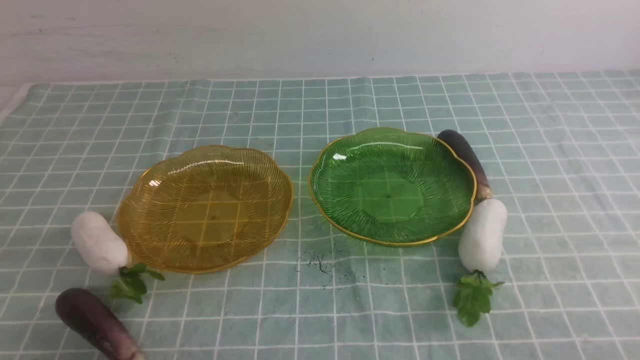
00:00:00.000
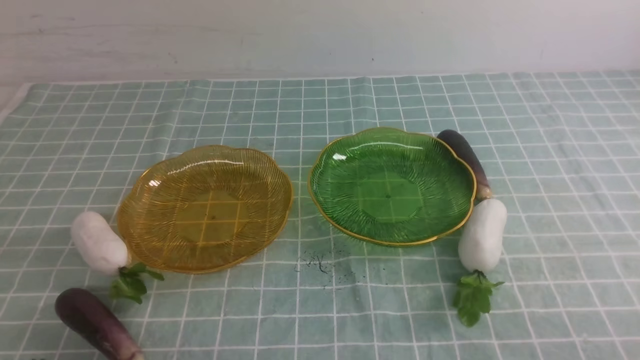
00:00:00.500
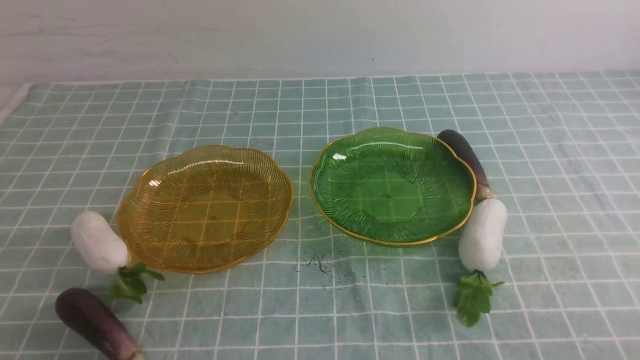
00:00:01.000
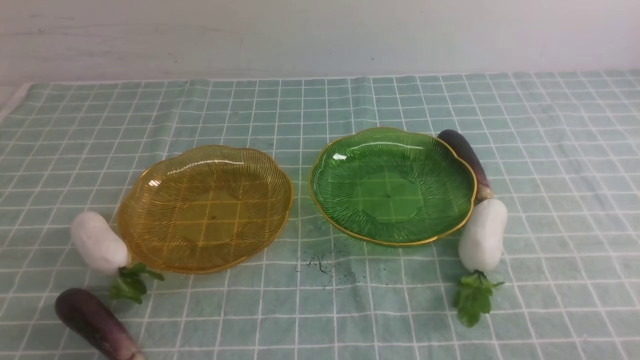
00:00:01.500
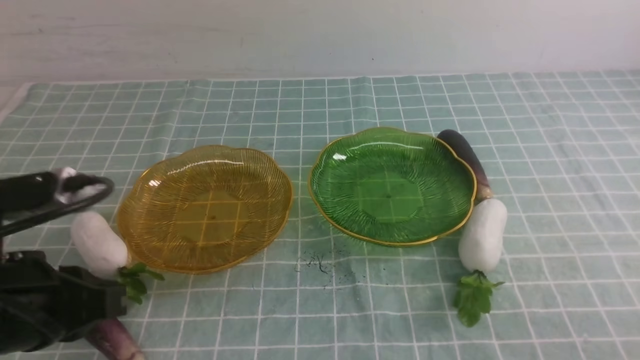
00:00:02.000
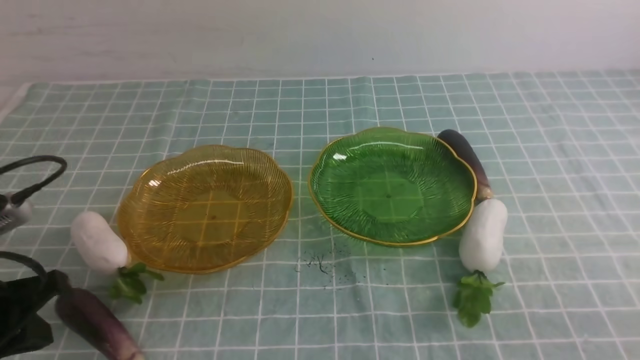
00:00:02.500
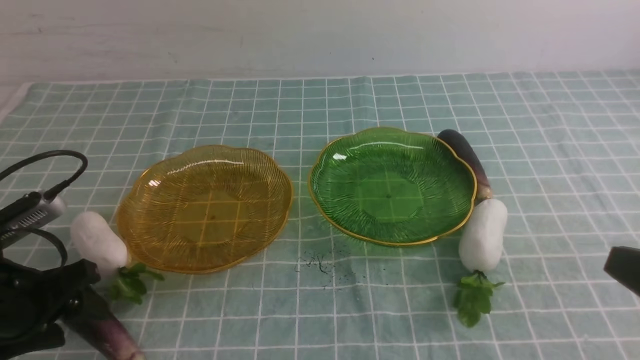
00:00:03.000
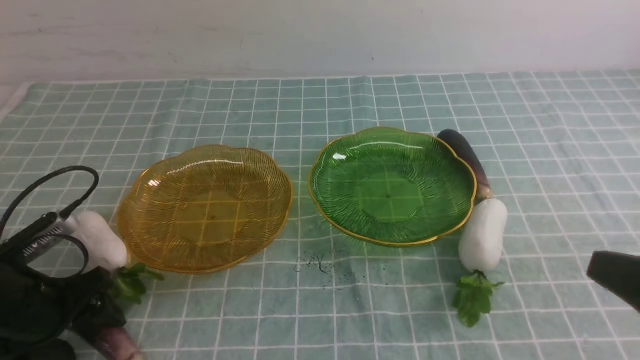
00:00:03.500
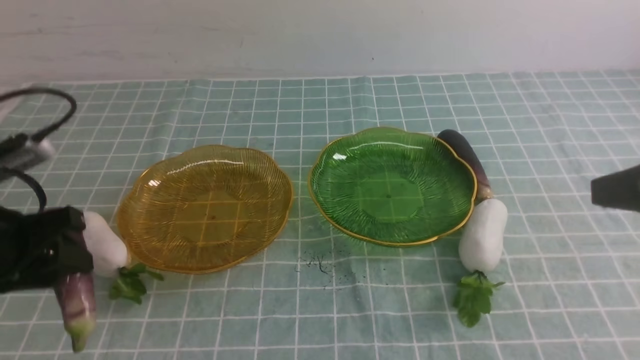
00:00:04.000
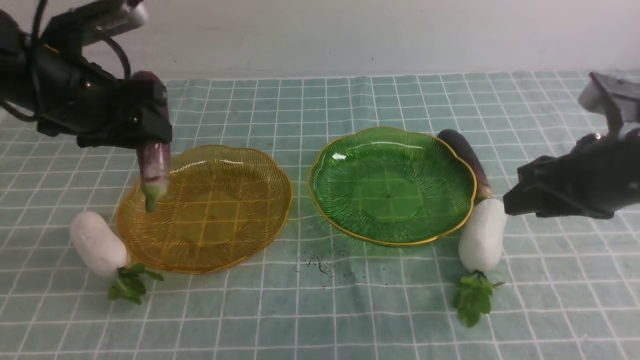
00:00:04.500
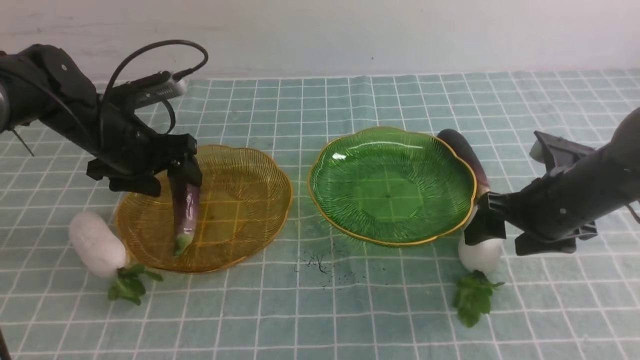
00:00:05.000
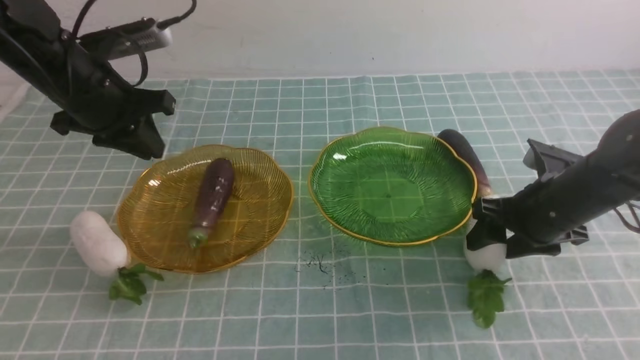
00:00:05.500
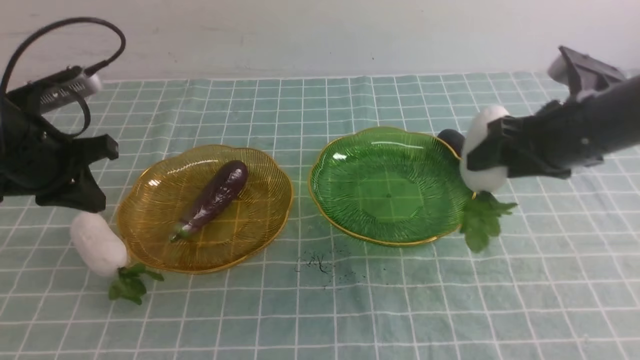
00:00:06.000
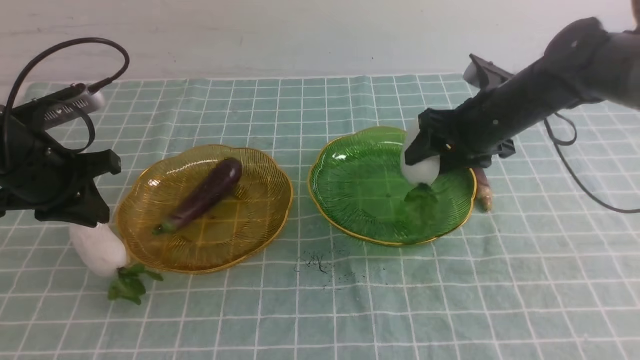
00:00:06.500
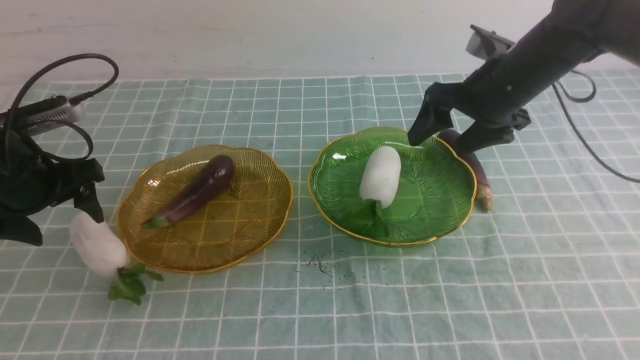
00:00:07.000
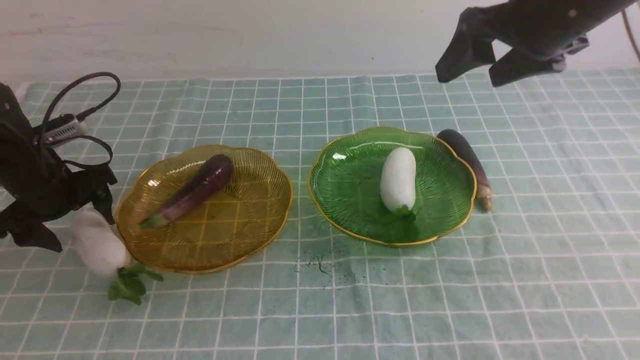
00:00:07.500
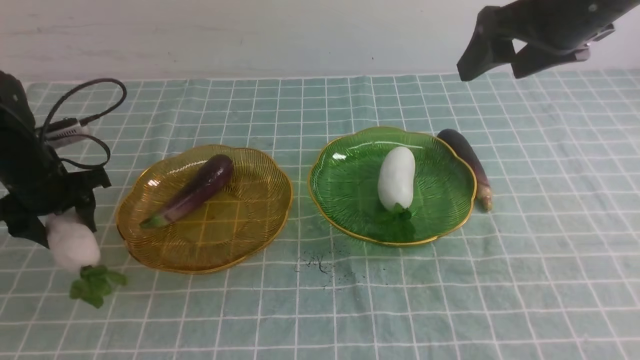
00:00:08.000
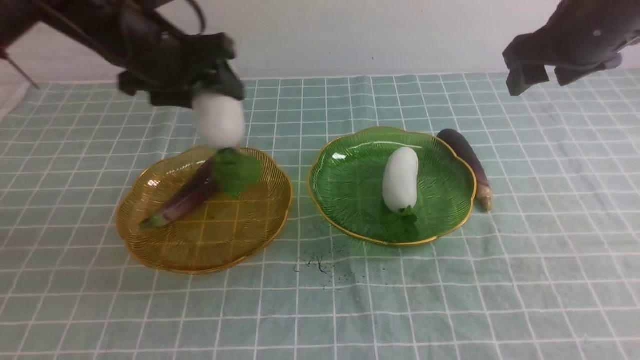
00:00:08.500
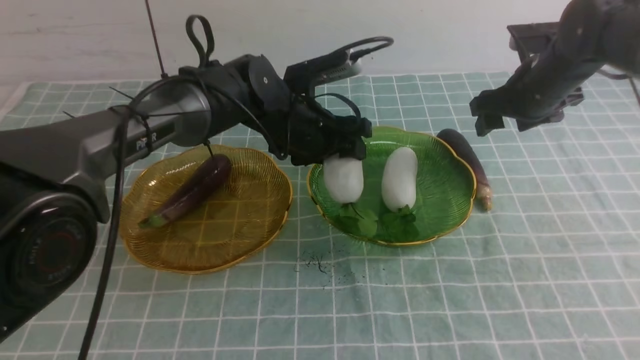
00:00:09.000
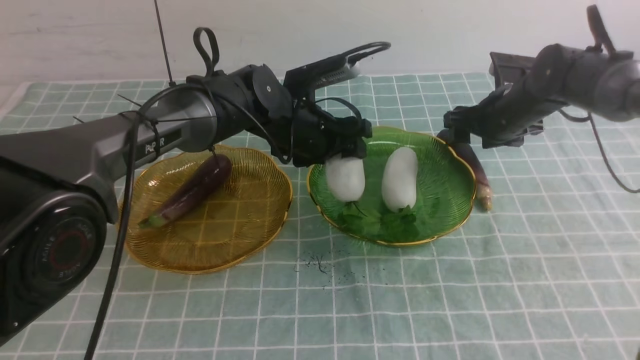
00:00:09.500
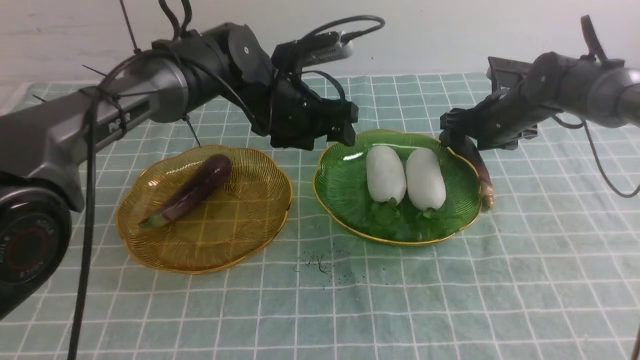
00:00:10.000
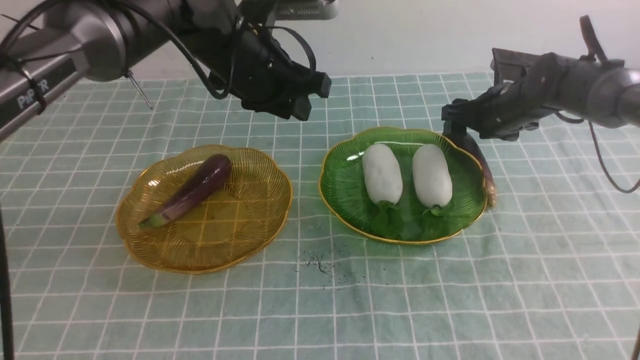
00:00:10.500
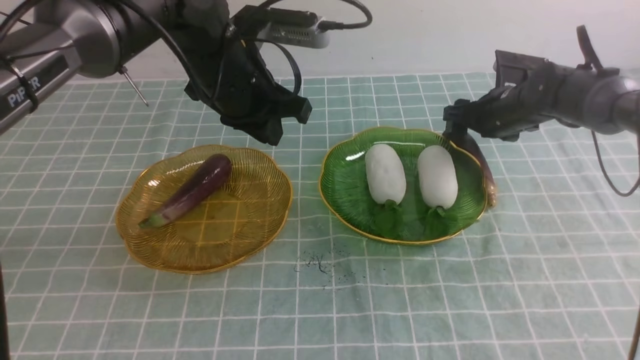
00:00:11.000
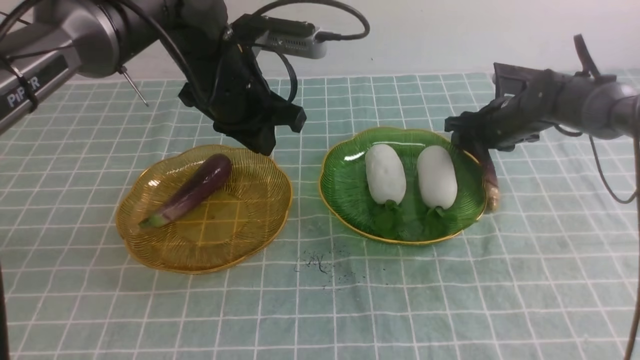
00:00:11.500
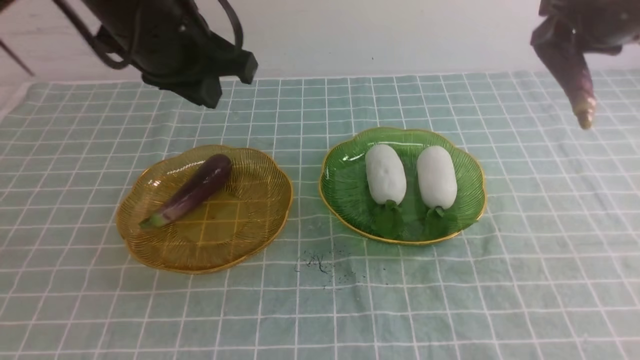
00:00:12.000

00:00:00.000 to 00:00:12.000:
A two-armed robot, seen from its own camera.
Step, 00:00:00.000 to 00:00:05.000: use the left arm to grab an eggplant and put it into the left plate.
Step, 00:00:05.500 to 00:00:06.500: use the right arm to grab a radish and put it into the right plate.
Step, 00:00:07.000 to 00:00:09.500: use the left arm to grab a radish and put it into the right plate.
00:00:00.000 to 00:00:02.000: The left gripper is displaced upward and forward by approximately 15 cm.
00:00:02.000 to 00:00:04.000: The right gripper moves upward and forward, approximately 20 cm, while the left gripper shifts approximately 10 cm forward and to the left, reaches approximately 10 cm downward, then returns, and opens up.
00:00:04.000 to 00:00:06.000: The left gripper goes roughly 10 cm forward, and closes its fingers. The right gripper moves forward and downward, some 20 cm, and opens up.
00:00:06.000 to 00:00:08.000: The left gripper is displaced downward by some 5 cm, and opens, while the right gripper moves upward, roughly 10 cm.
00:00:08.000 to 00:00:10.000: The right gripper moves downward and forward, about 25 cm. Meanwhile the left gripper heads to the right, covering some 25 cm.
00:00:10.000 to 00:00:12.000: The left gripper heads upward, backward and to the left, covering about 20 cm, and closes, while the right gripper is displaced upward by about 15 cm.

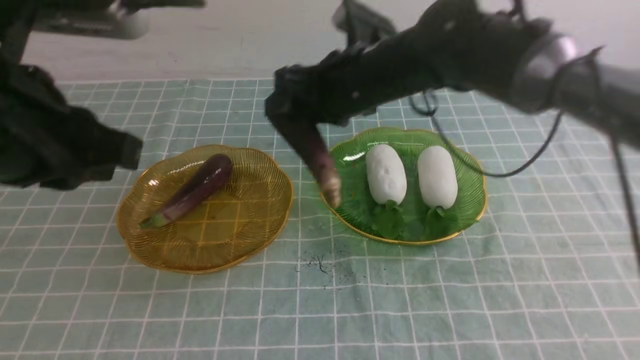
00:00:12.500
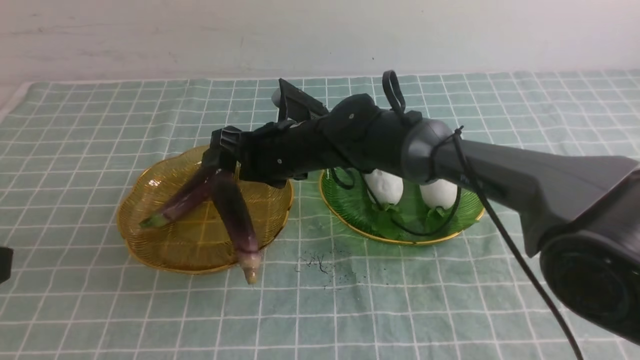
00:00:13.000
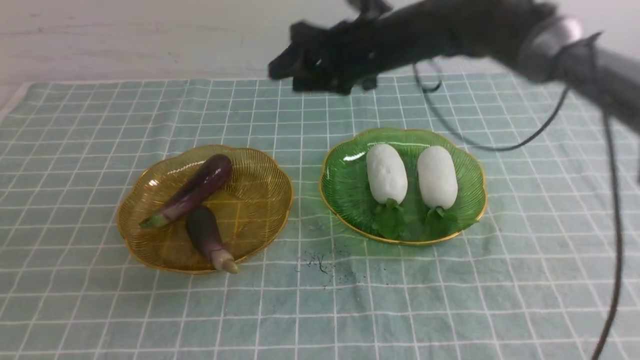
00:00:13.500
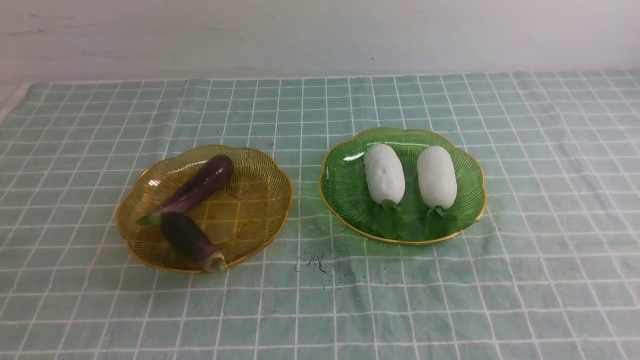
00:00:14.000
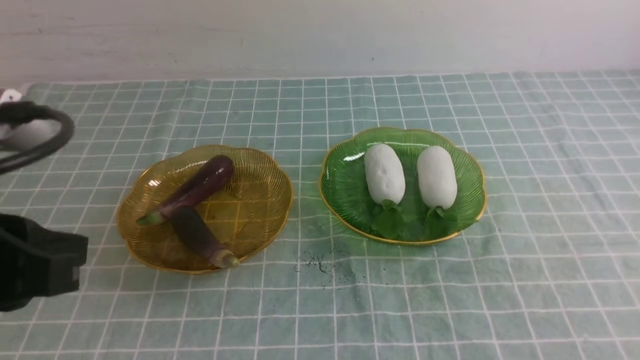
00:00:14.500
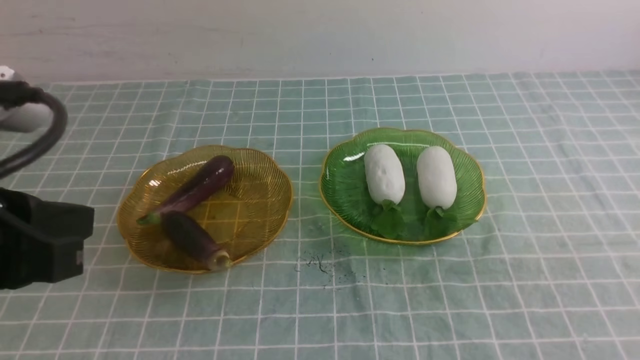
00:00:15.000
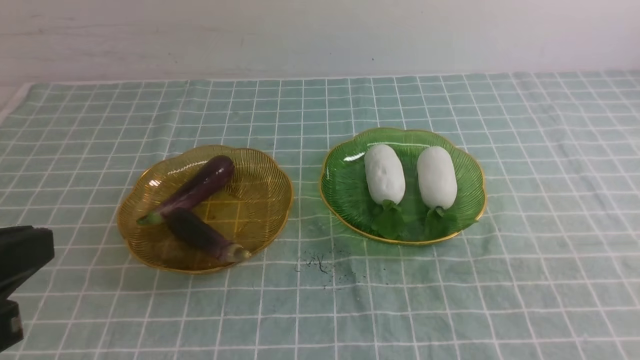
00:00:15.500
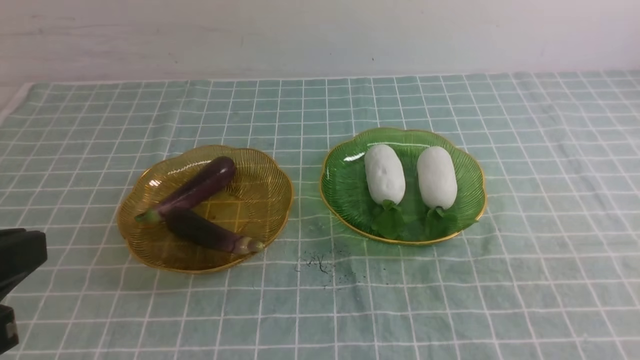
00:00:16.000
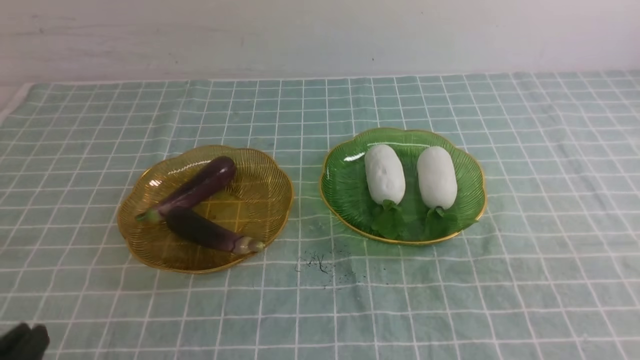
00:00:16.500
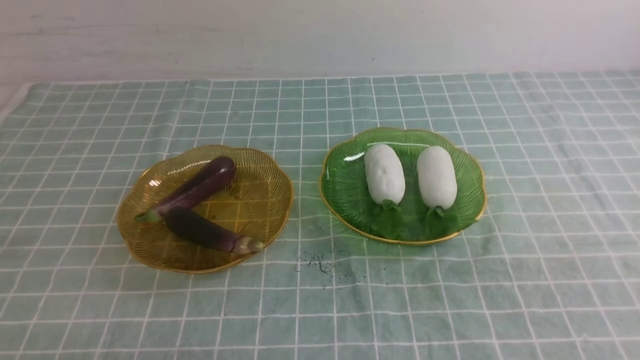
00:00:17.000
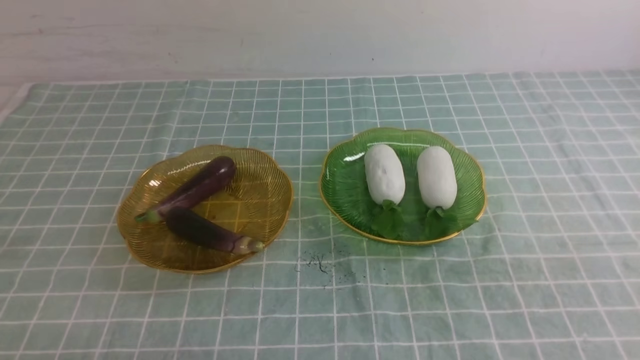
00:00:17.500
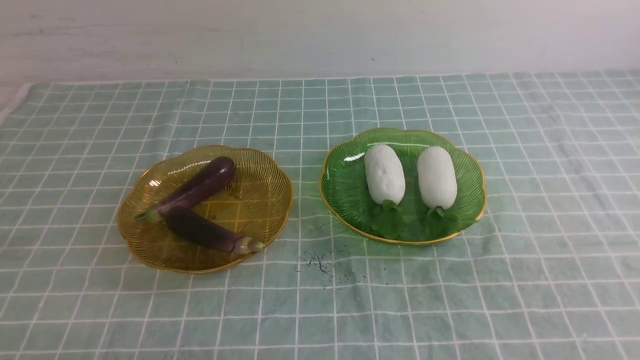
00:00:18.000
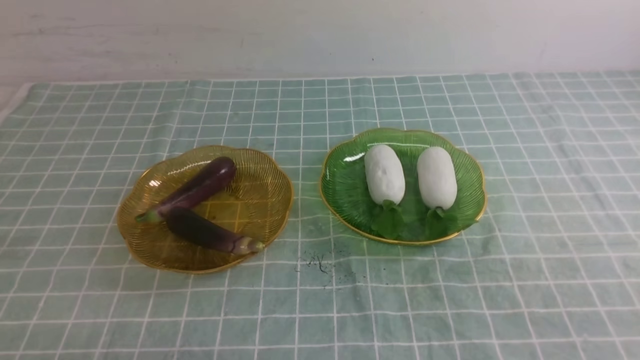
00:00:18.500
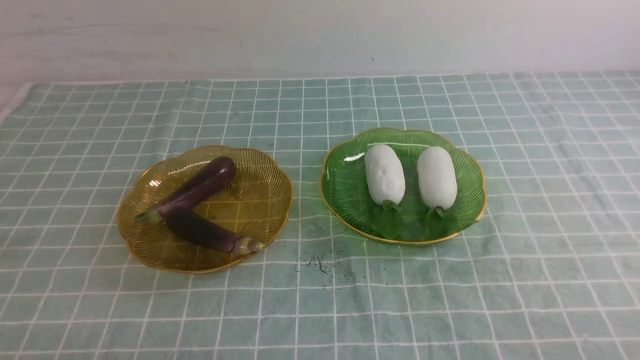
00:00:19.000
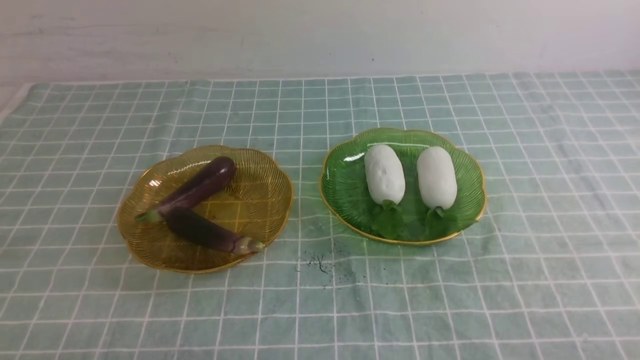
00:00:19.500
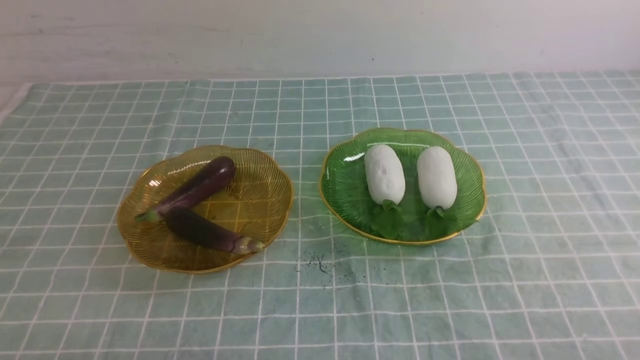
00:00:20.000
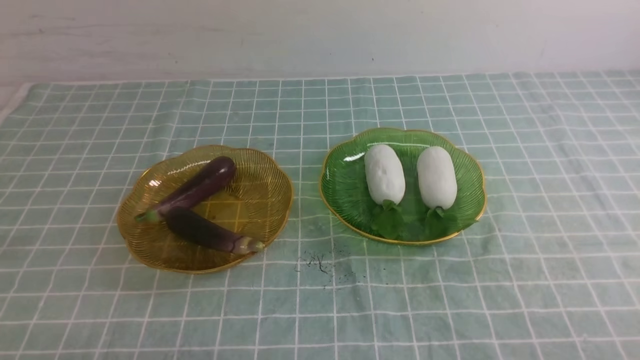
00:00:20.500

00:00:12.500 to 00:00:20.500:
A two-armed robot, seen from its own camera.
00:00:12.500 to 00:00:14.500: The right gripper goes roughly 50 cm backward, to the right and upward, and closes its fingers, while the left gripper moves backward, about 5 cm.
00:00:14.500 to 00:00:16.500: The left gripper moves downward and backward, some 15 cm.
00:00:16.500 to 00:00:18.500: The left gripper goes approximately 5 cm downward.
